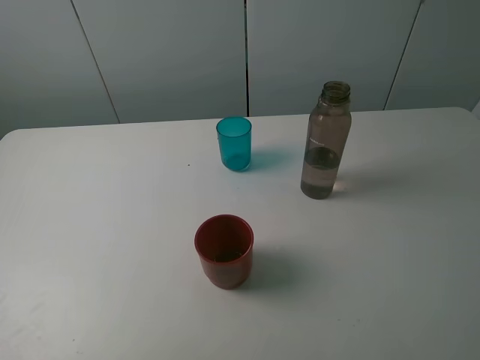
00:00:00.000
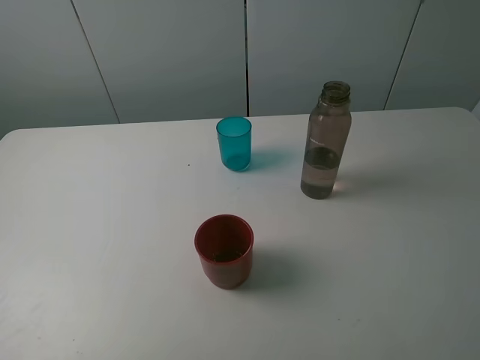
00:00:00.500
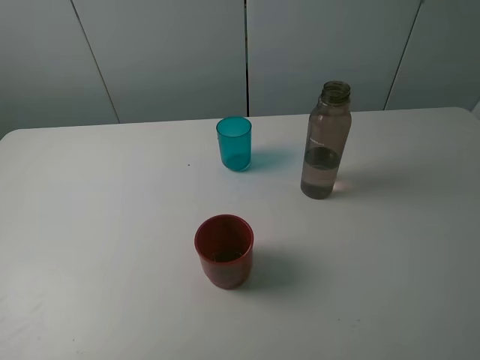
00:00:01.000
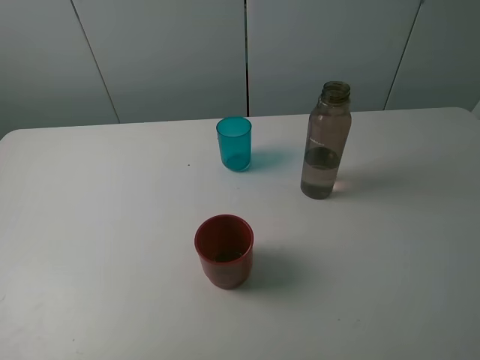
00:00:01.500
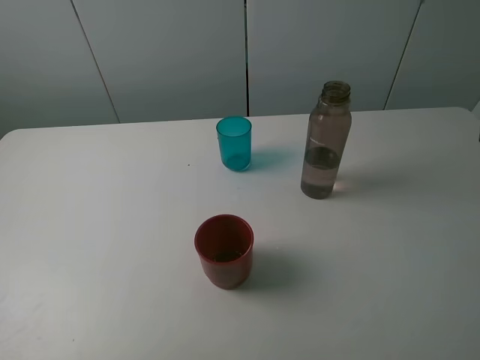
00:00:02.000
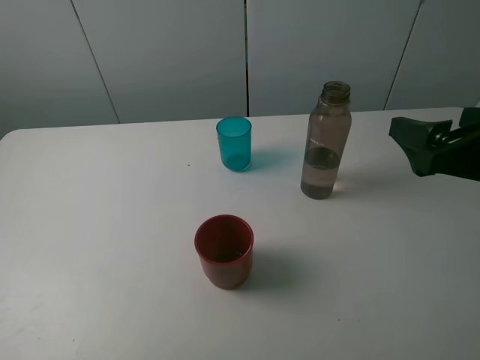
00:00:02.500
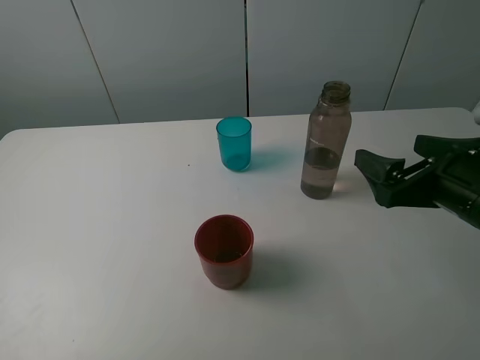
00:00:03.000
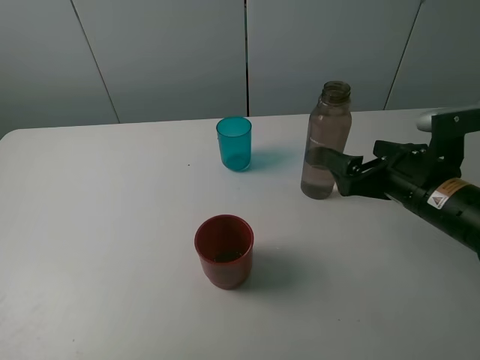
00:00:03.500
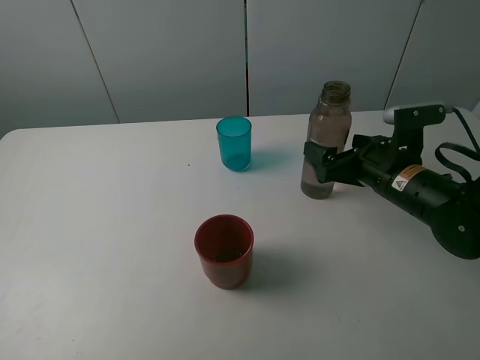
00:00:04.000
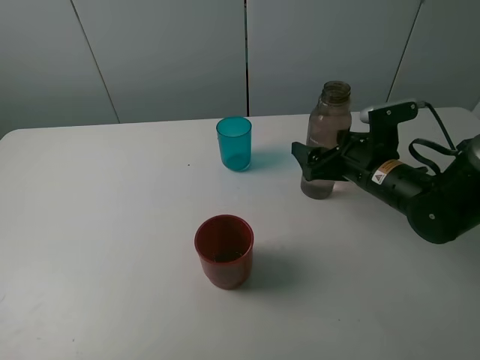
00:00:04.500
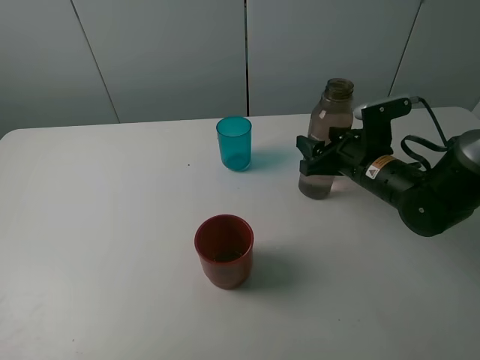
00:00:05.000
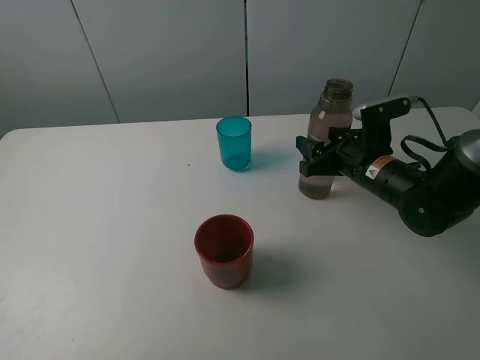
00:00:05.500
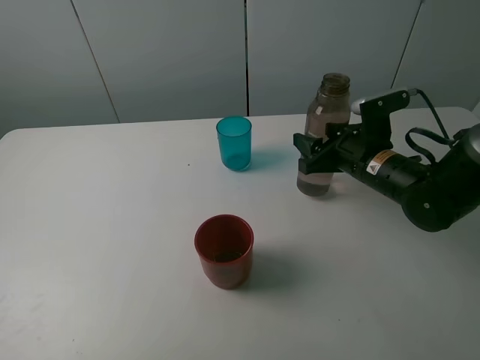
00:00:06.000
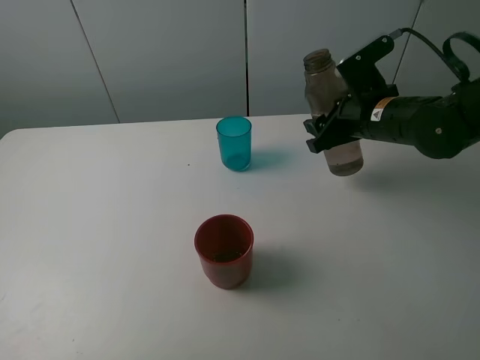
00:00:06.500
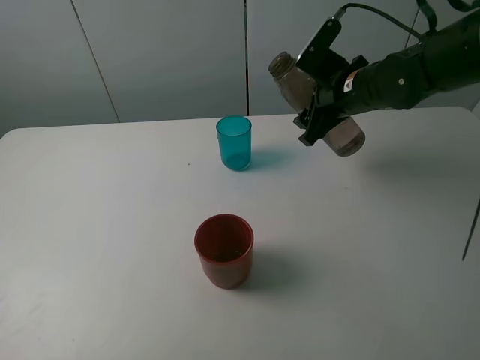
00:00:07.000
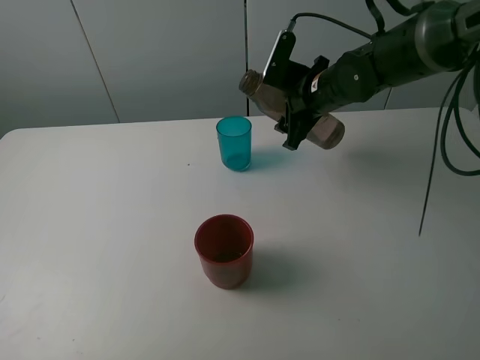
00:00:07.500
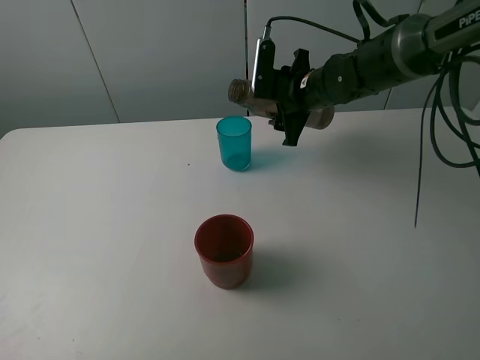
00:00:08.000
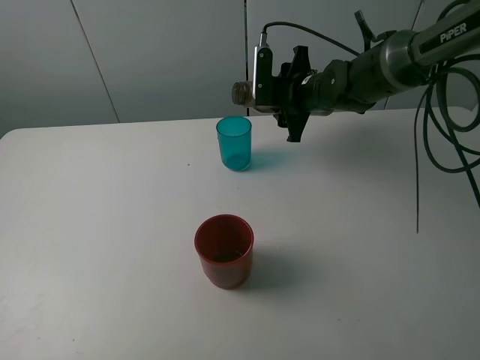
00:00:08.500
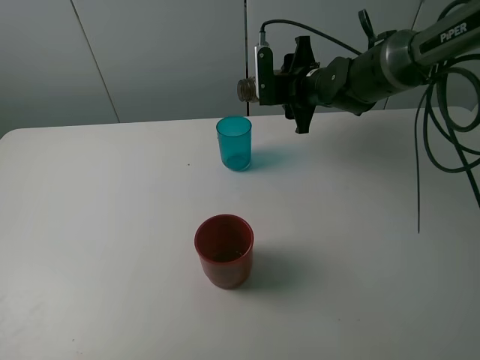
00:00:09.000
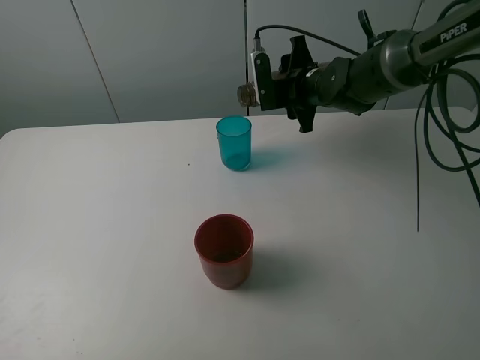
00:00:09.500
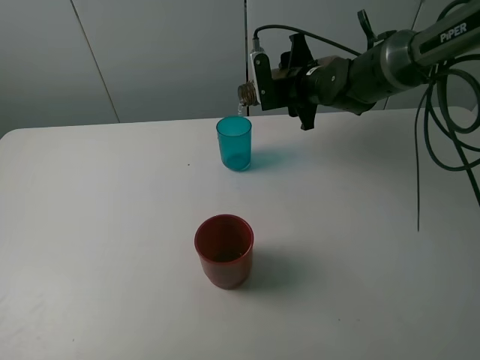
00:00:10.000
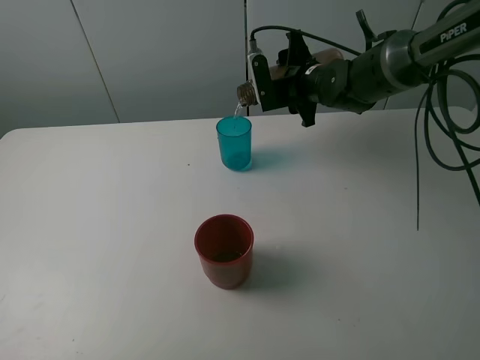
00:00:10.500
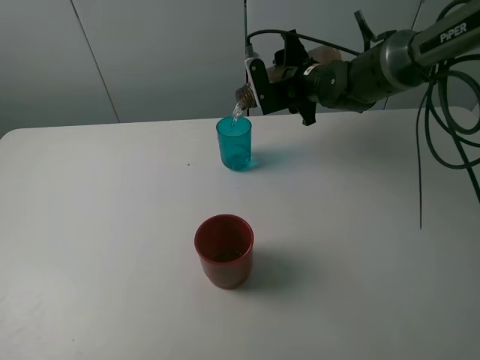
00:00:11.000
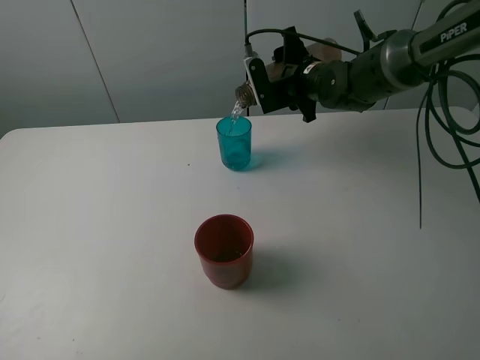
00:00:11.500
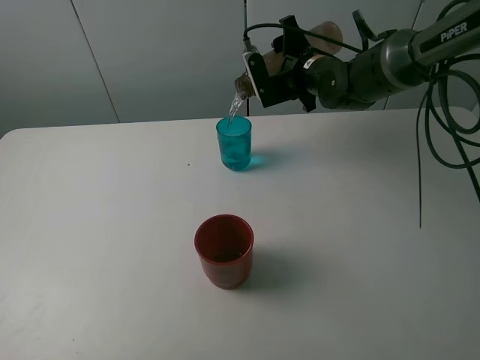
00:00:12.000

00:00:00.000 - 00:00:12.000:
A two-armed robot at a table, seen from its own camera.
Task of the whole recording: pick up the bottle and pour water into the cup, then pick up the cup containing water and pour it into another cup.
Step, 00:00:00.000 - 00:00:05.000: Grasp the brown bottle with the right gripper.
00:00:02.000 - 00:00:04.000: The right gripper travels downward and forward by some 25 cm.
00:00:04.000 - 00:00:06.000: The right gripper closes.
00:00:06.000 - 00:00:08.000: The right gripper travels forward and to the left by approximately 15 cm.
00:00:10.000 - 00:00:12.000: There are only small adjustments of the grippers.

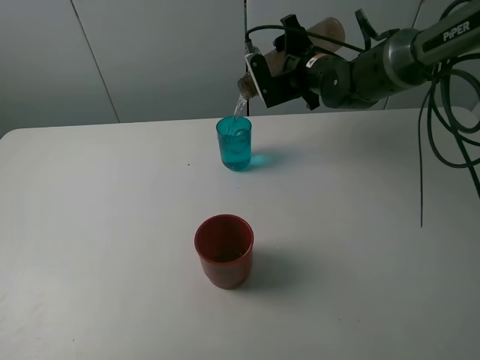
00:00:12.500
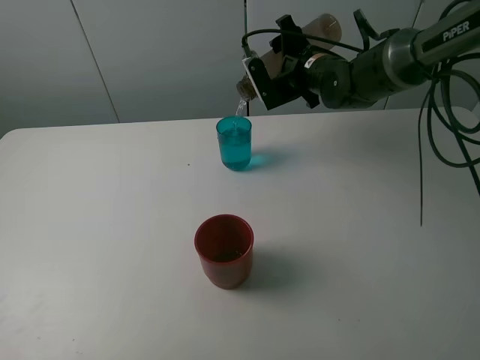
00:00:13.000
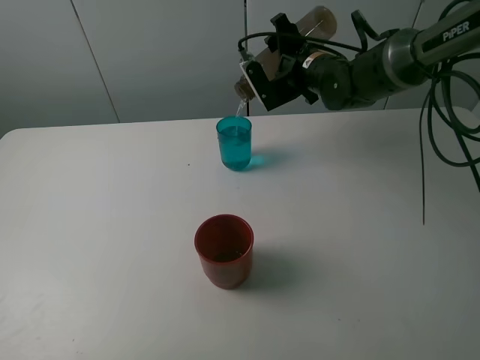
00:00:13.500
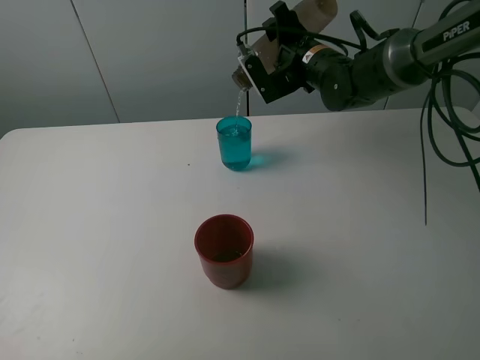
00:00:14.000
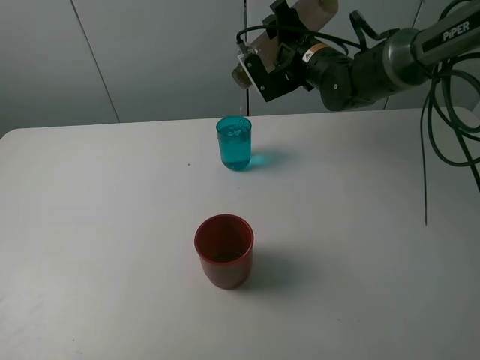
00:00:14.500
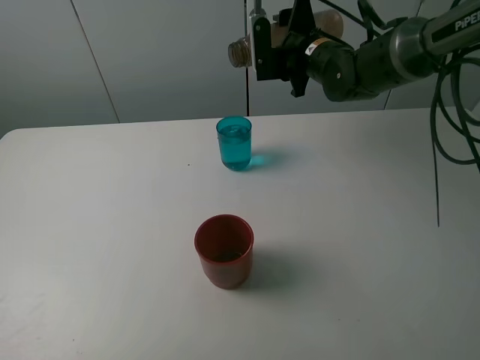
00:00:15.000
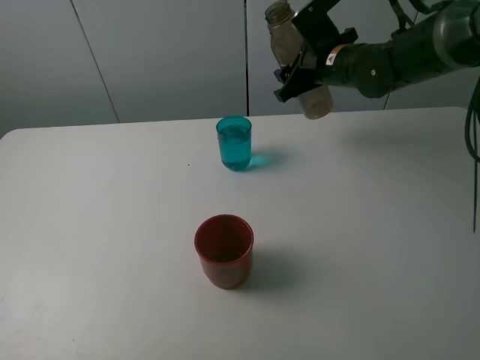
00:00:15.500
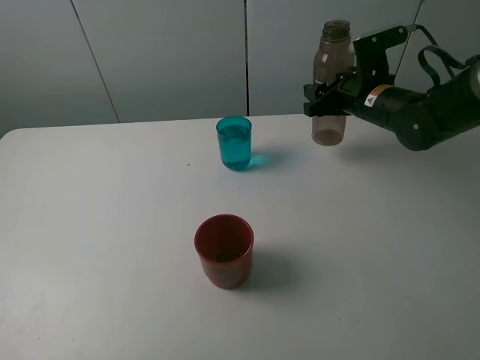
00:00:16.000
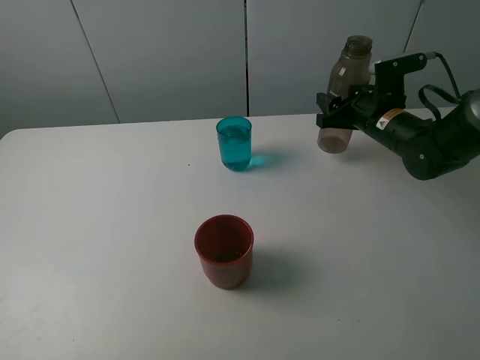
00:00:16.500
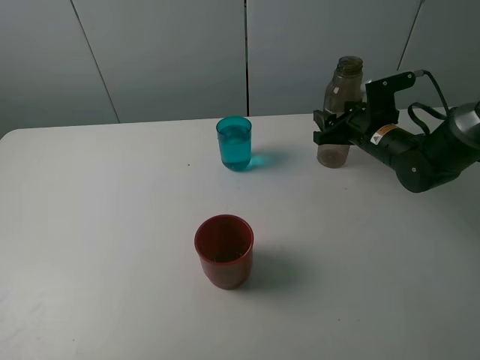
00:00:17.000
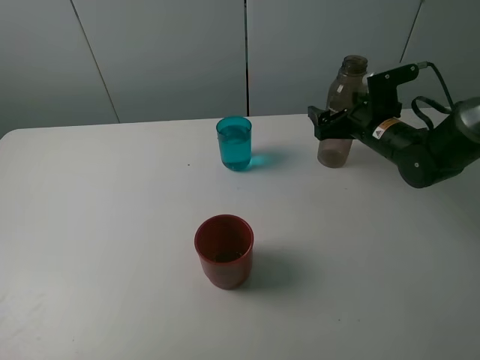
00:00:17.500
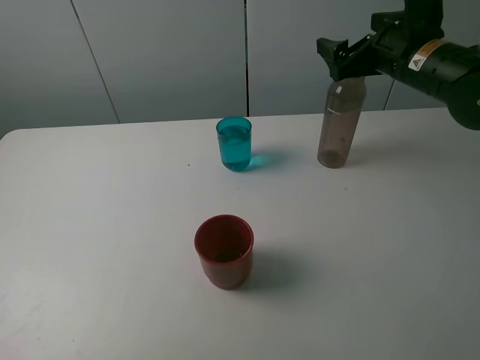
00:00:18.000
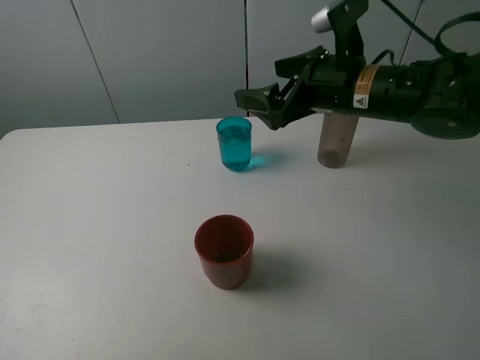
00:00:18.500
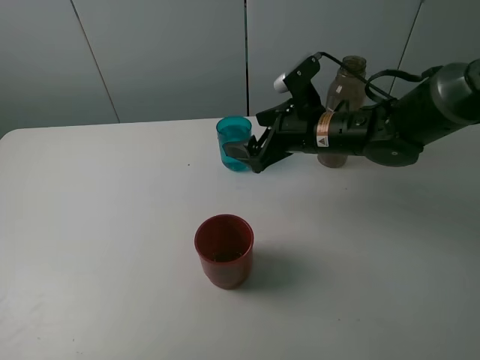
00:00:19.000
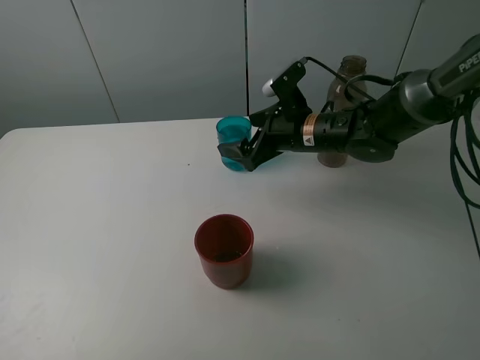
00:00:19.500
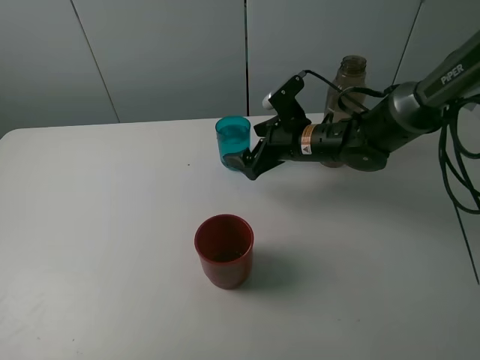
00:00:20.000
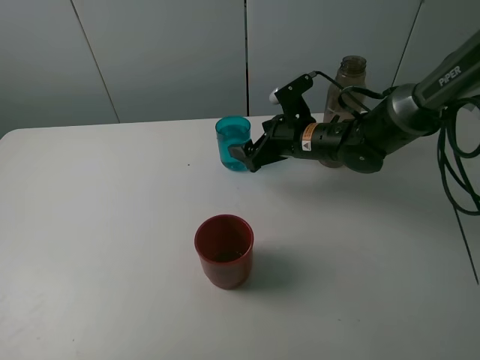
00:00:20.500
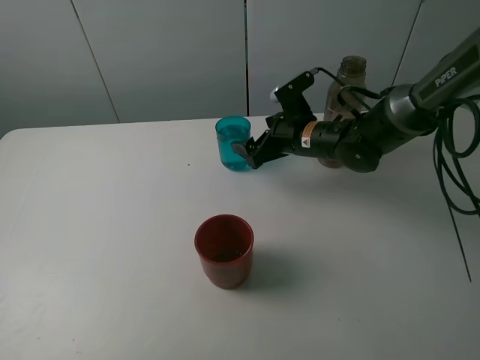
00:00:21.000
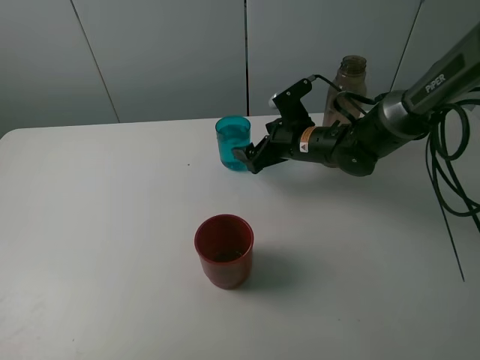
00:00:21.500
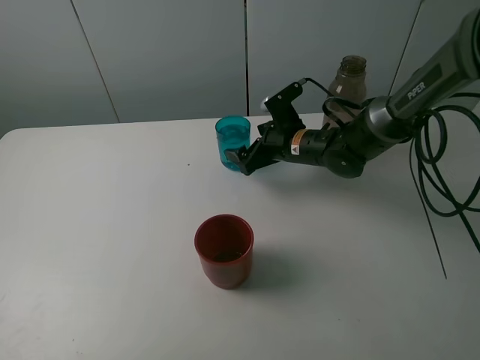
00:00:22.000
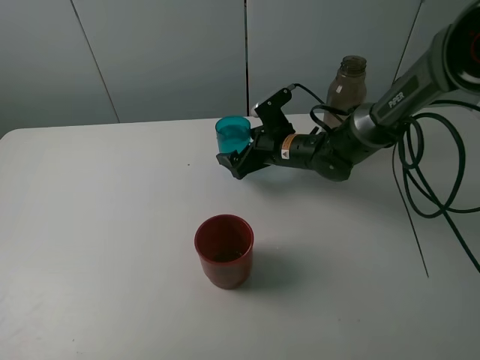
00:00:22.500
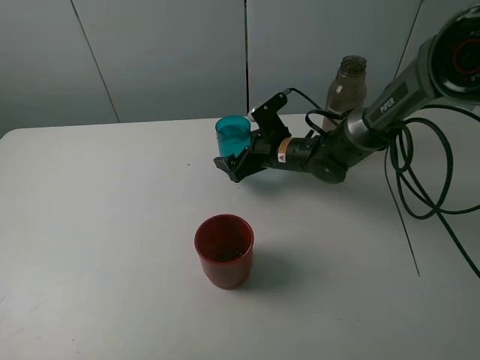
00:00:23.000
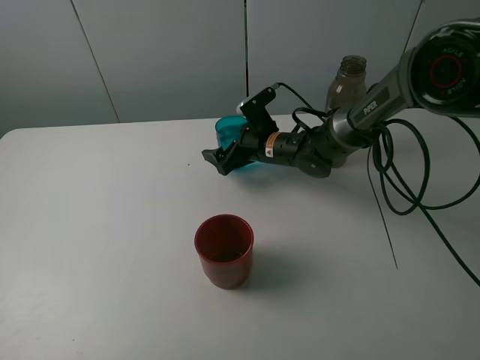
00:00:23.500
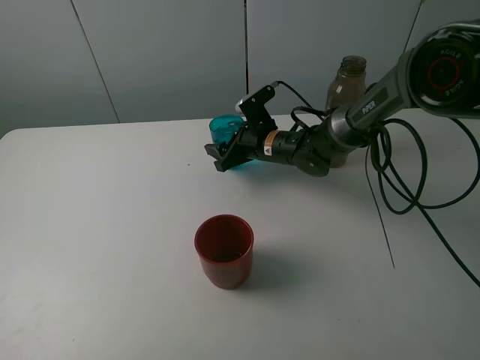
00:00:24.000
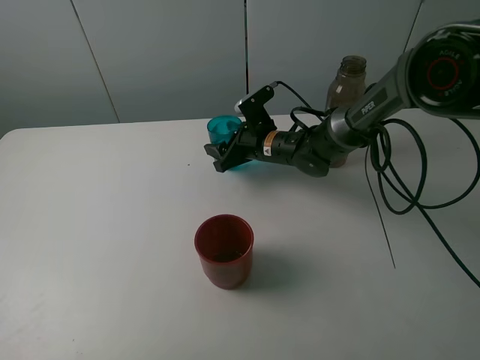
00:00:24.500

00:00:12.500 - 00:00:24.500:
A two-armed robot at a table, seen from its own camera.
Task of the whole recording: pick up the bottle and pour water into the cup, then pick up the cup containing water and pour it into another cup.
Step, 00:00:12.500 - 00:00:15.000: Pour water from brown bottle to blue cup with the right gripper.
Step, 00:00:15.500 - 00:00:17.500: Place the brown bottle with the right gripper.
Step, 00:00:18.000 - 00:00:24.000: Grasp the blue cup with the right gripper.
00:00:12.500 - 00:00:14.500: There are only small adjustments of the grippers.
00:00:14.500 - 00:00:16.500: The right gripper heads to the right, downward and backward, covering about 15 cm.
00:00:16.500 - 00:00:18.500: The right gripper travels to the left, upward and backward by roughly 15 cm, and opens up.
00:00:18.500 - 00:00:20.500: The right gripper moves downward and forward, about 10 cm.
00:00:20.500 - 00:00:22.500: The right gripper moves approximately 5 cm.
00:00:22.500 - 00:00:24.500: The right gripper closes up.

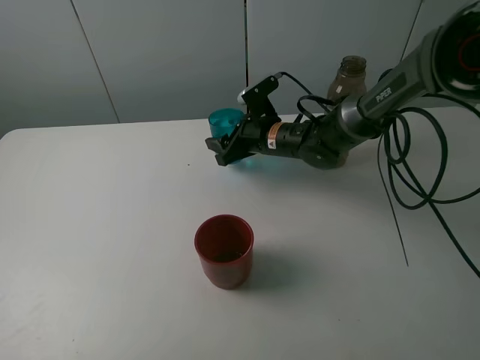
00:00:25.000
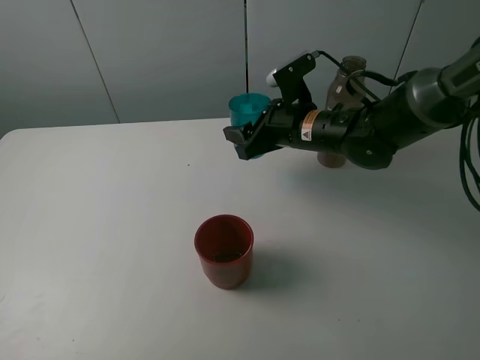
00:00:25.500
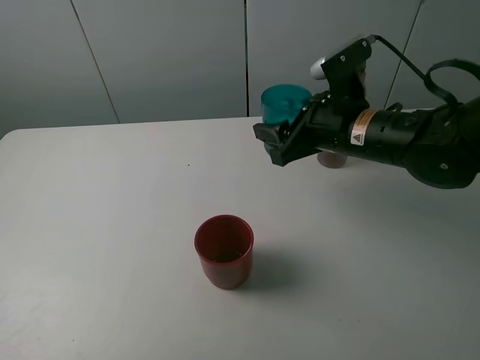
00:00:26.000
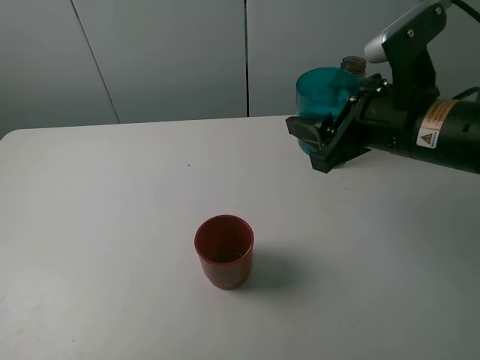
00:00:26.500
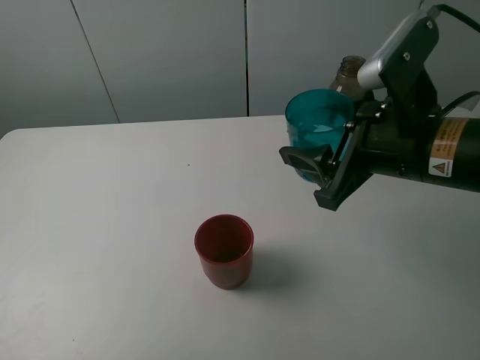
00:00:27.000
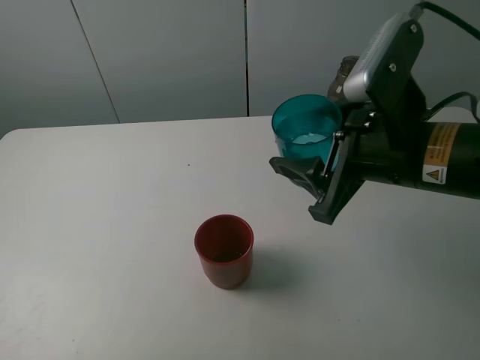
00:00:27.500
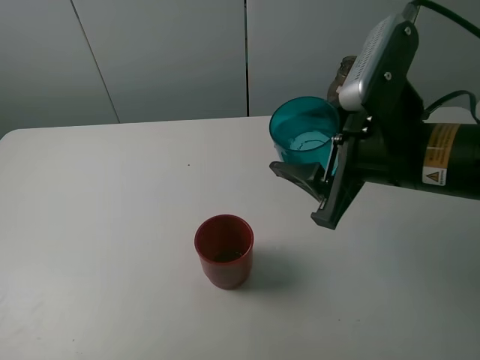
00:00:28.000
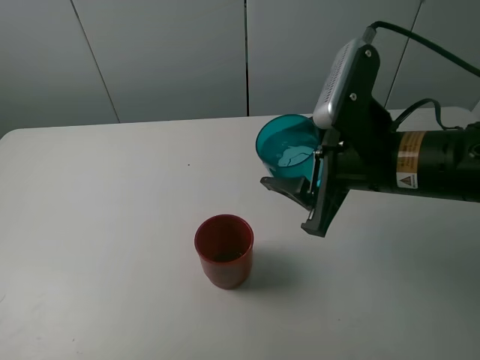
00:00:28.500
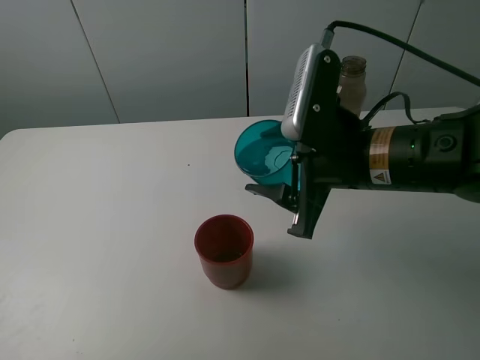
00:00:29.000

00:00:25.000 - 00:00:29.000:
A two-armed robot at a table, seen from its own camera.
Task of the whole recording: pick up the bottle and pour water into the cup, then pick up the cup containing water and pour it into another cup.
00:00:25.000 - 00:00:27.000: The right gripper travels backward, upward and to the right by approximately 25 cm.
